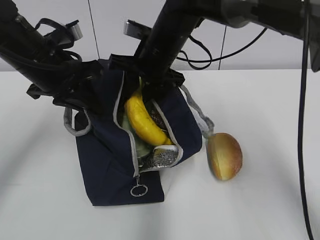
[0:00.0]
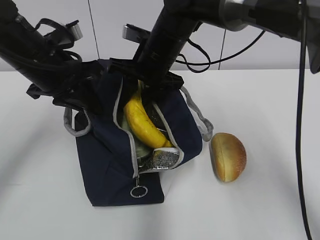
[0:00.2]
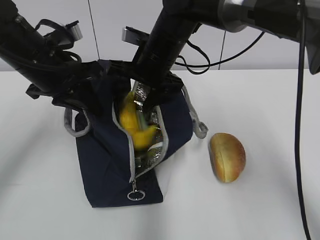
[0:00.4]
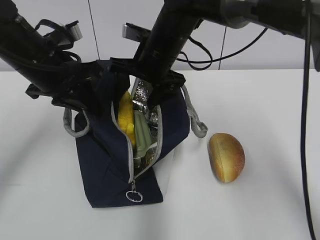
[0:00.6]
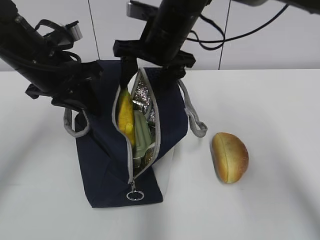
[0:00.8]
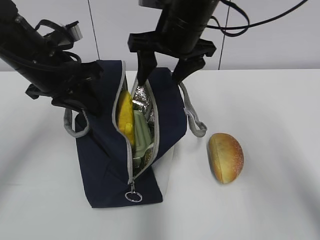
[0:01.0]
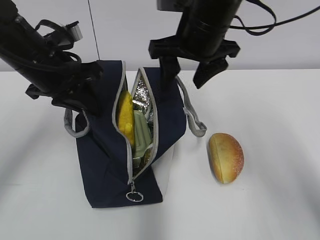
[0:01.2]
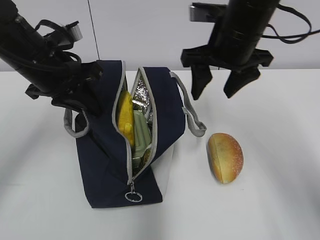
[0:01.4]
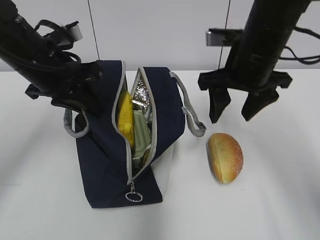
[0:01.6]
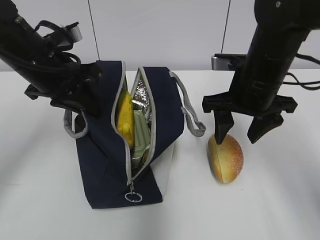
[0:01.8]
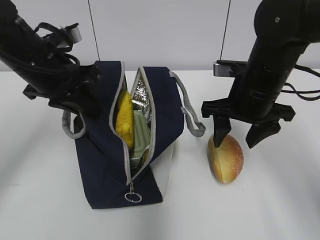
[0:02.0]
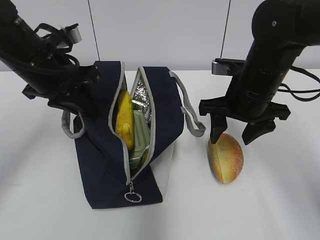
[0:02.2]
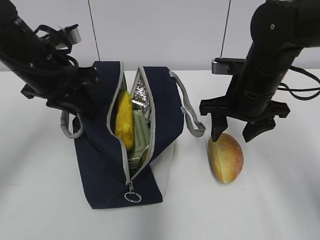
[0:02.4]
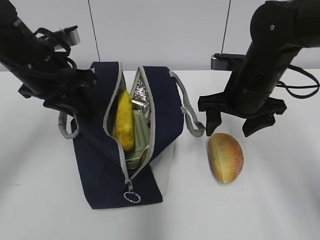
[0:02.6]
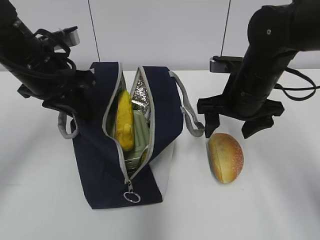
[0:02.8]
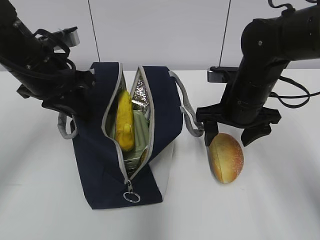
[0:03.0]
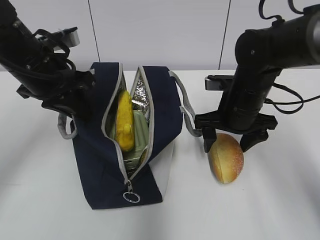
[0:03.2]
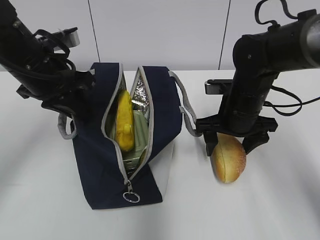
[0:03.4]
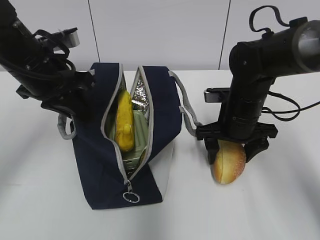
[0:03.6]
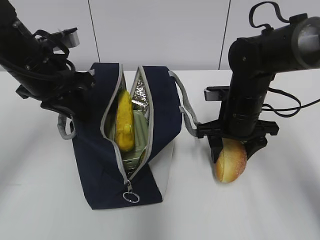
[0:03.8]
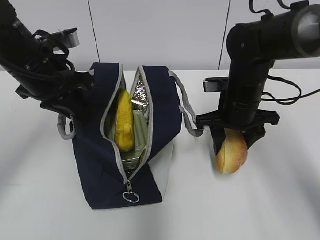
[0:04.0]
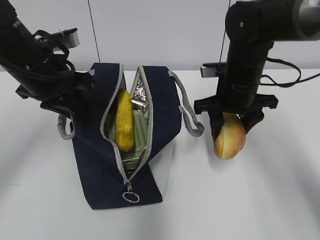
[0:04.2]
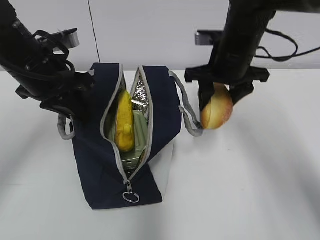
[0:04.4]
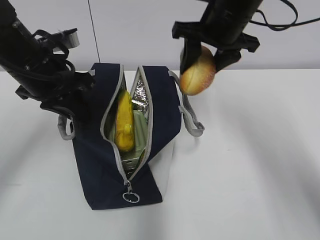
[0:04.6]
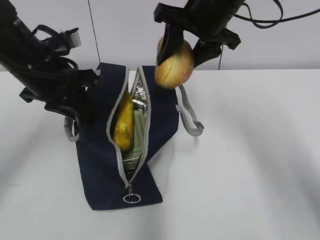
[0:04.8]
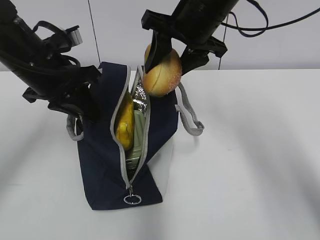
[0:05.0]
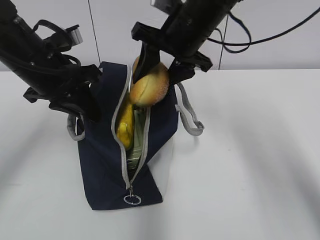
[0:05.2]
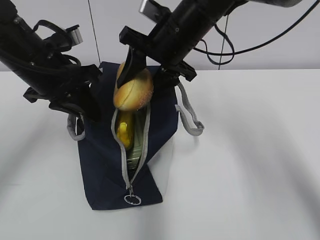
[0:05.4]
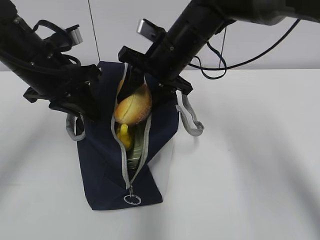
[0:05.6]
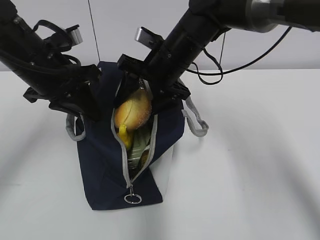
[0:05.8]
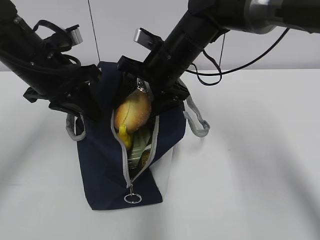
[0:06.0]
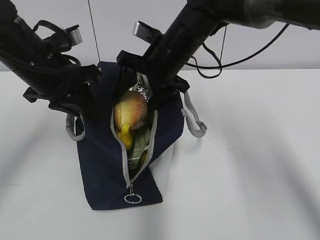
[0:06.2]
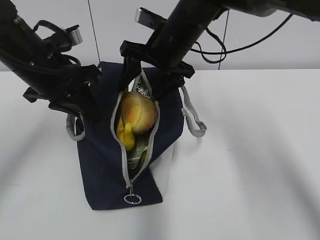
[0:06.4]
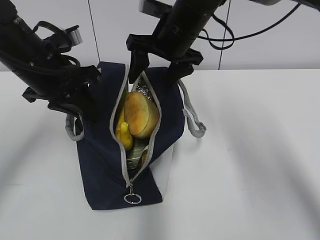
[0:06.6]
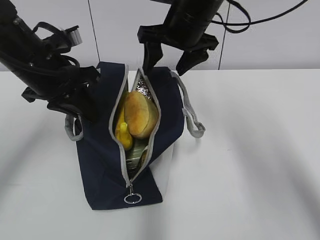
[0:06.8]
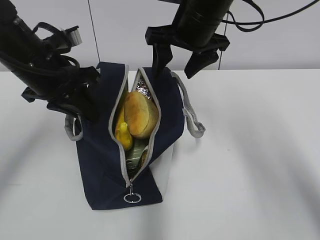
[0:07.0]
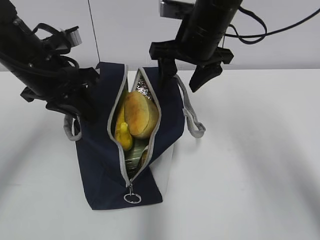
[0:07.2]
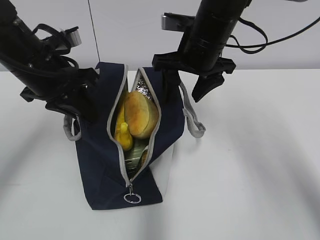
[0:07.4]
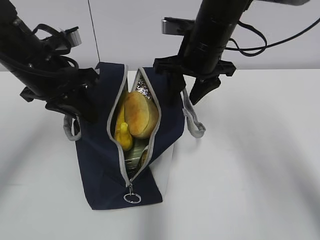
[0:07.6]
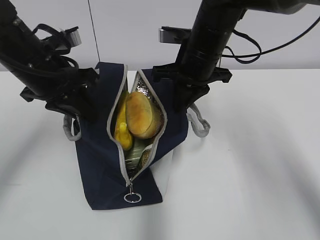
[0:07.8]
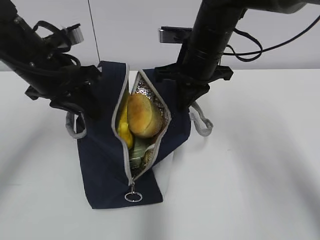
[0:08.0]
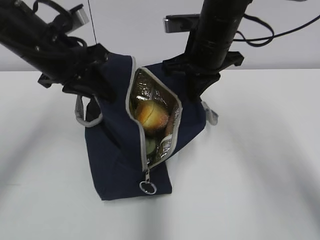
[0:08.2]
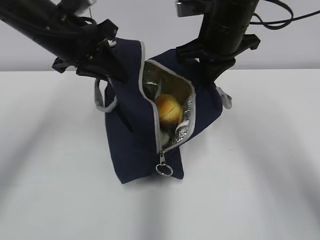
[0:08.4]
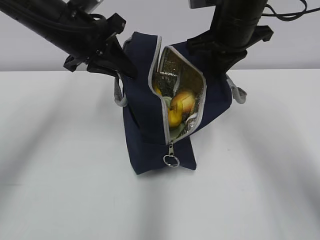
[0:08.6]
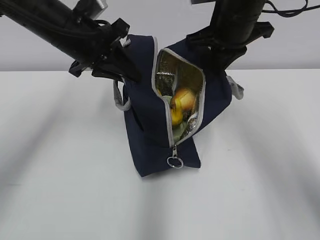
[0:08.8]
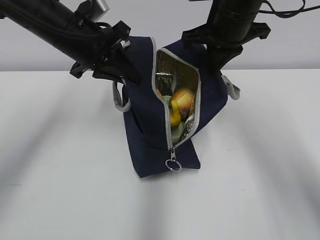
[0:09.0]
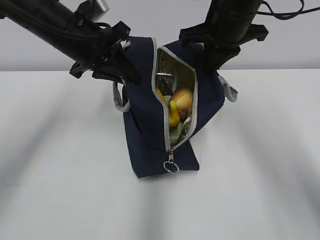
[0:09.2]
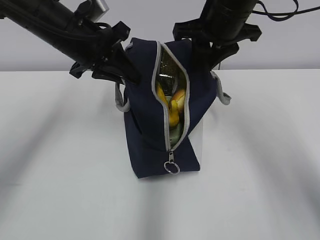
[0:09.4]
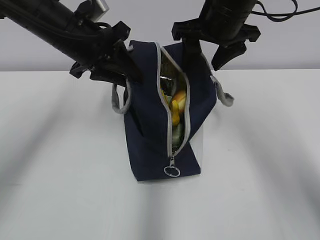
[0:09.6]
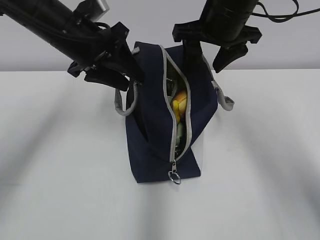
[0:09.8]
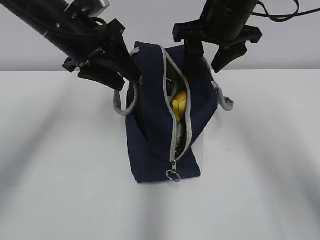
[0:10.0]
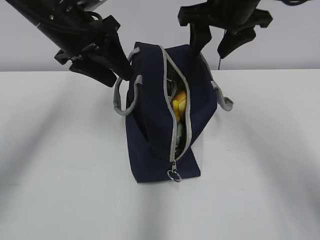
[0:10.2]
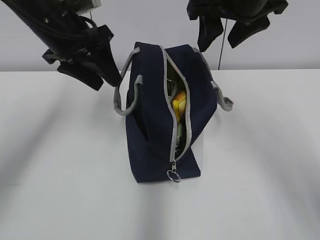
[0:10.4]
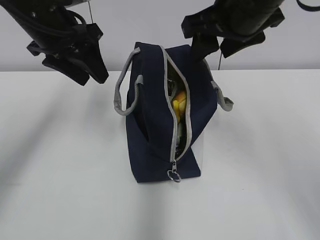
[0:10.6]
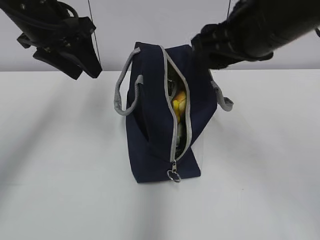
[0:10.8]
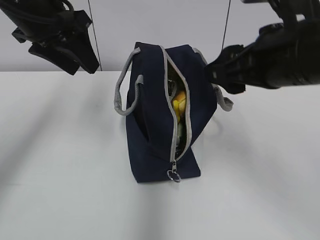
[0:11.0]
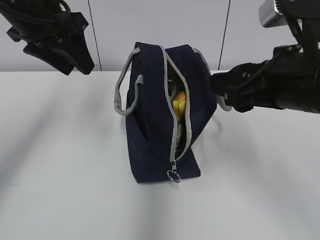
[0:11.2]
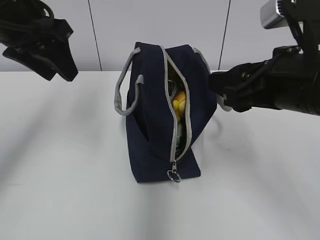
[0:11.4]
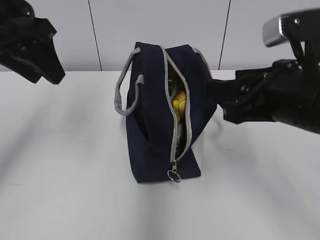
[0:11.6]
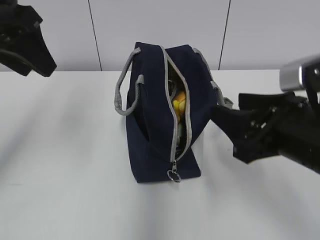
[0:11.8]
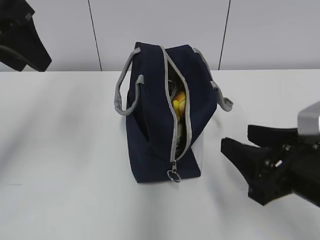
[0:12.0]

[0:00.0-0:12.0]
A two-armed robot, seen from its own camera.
0:00.0 to 0:01.6: The right gripper moves to the right and backward, approximately 15 cm, and opens up.
0:01.6 to 0:03.0: The right gripper shifts some 10 cm downward.
0:03.0 to 0:04.4: The right gripper is displaced upward by roughly 5 cm.
0:04.4 to 0:06.0: The right gripper heads to the left, covering some 10 cm, and reaches about 10 cm upward, then returns.
0:06.0 to 0:07.6: The right gripper shifts by approximately 5 cm.
0:07.6 to 0:09.0: The right gripper changes place by about 5 cm, and closes its fingers; the left gripper moves approximately 5 cm.
0:09.0 to 0:10.4: The right gripper moves about 5 cm, and opens. Meanwhile the left gripper opens.
0:10.4 to 0:12.0: The right gripper moves backward and downward, some 25 cm, while the left gripper goes some 15 cm backward, upward and to the left.

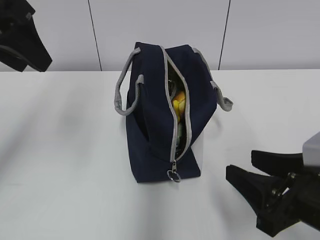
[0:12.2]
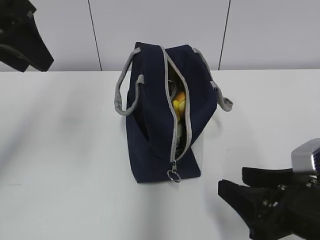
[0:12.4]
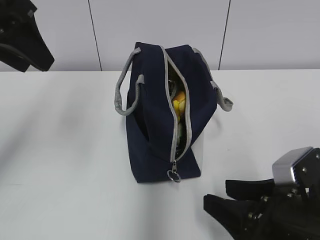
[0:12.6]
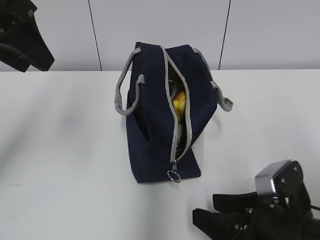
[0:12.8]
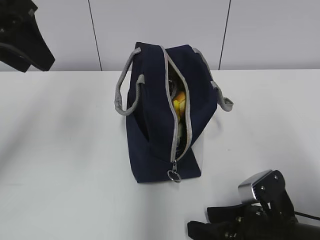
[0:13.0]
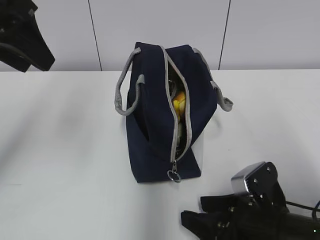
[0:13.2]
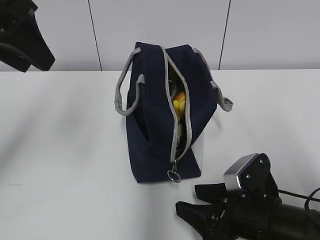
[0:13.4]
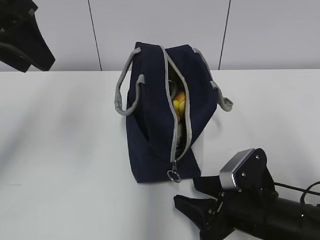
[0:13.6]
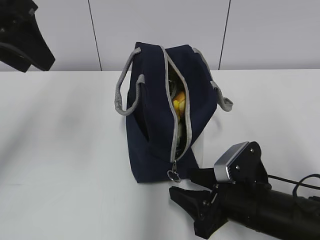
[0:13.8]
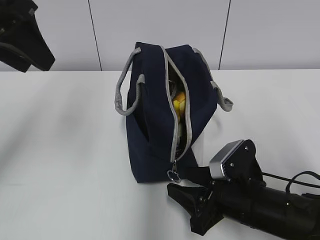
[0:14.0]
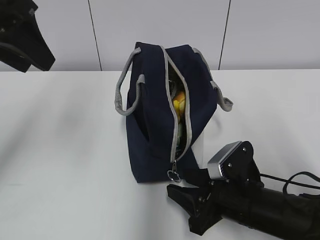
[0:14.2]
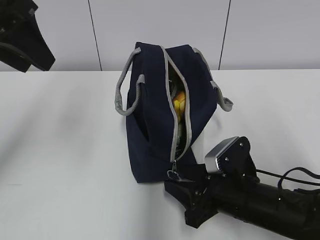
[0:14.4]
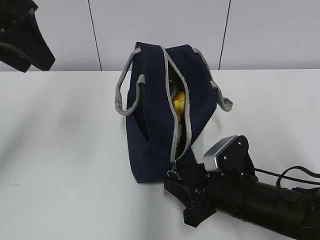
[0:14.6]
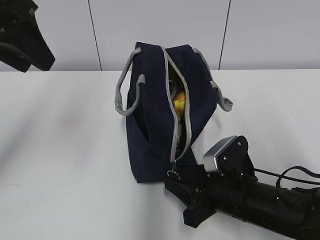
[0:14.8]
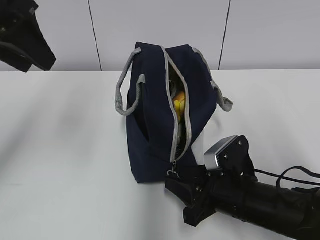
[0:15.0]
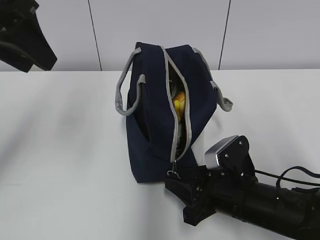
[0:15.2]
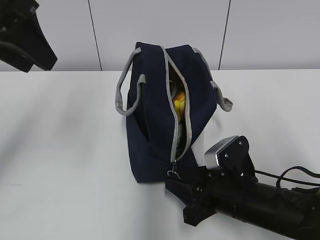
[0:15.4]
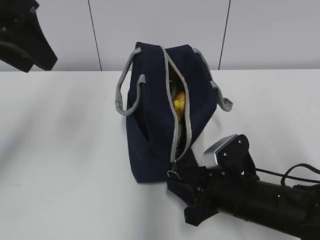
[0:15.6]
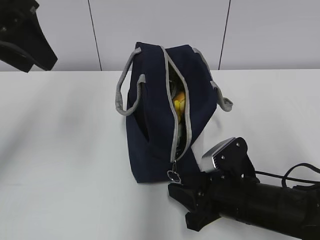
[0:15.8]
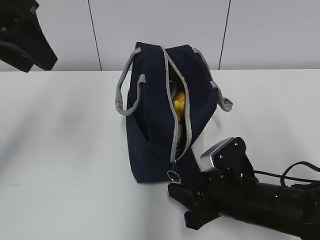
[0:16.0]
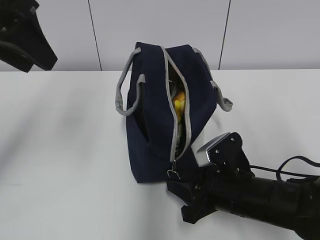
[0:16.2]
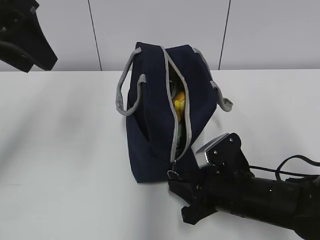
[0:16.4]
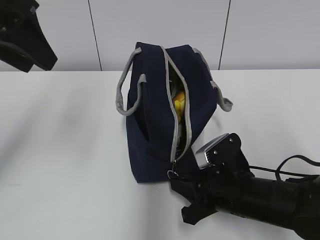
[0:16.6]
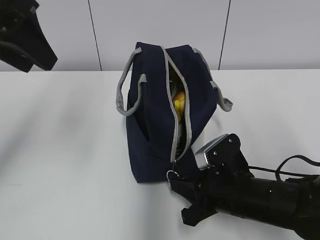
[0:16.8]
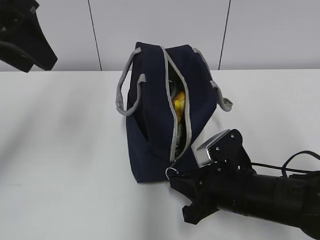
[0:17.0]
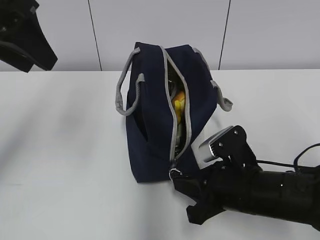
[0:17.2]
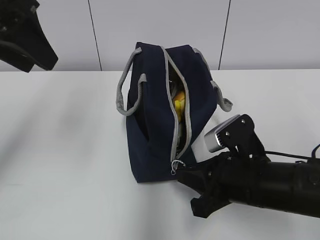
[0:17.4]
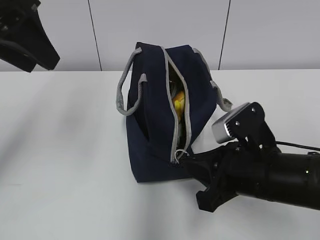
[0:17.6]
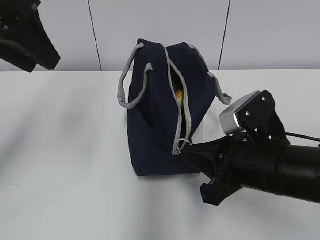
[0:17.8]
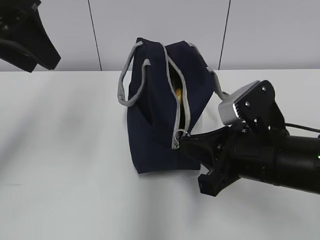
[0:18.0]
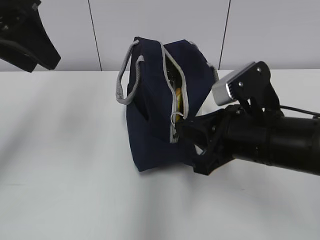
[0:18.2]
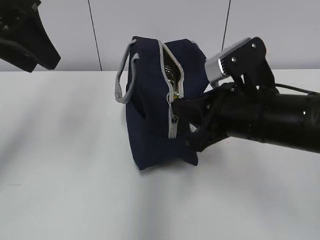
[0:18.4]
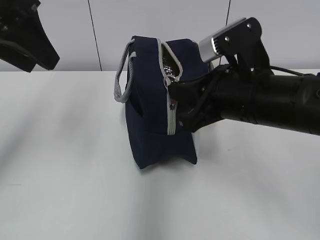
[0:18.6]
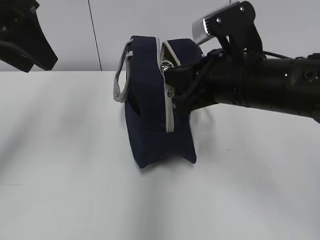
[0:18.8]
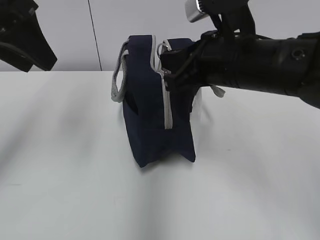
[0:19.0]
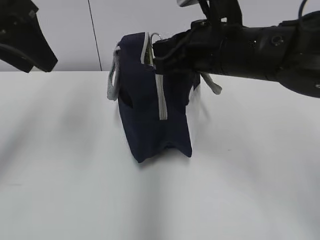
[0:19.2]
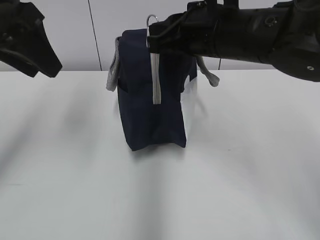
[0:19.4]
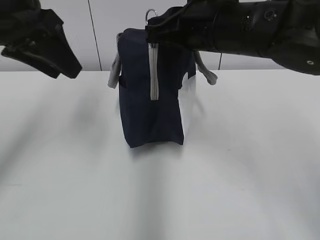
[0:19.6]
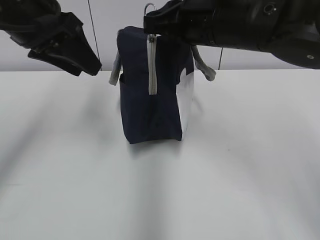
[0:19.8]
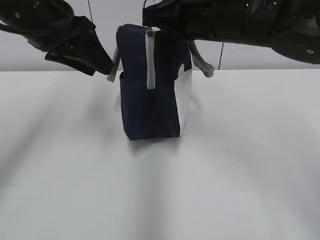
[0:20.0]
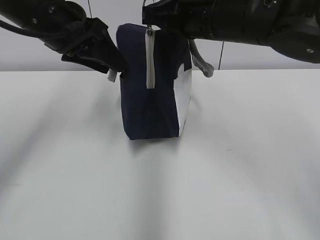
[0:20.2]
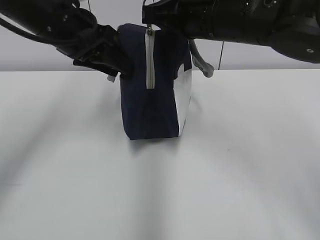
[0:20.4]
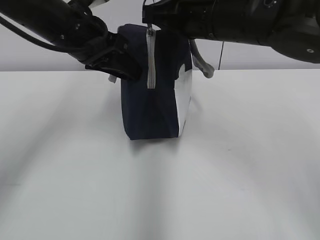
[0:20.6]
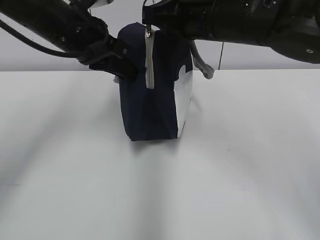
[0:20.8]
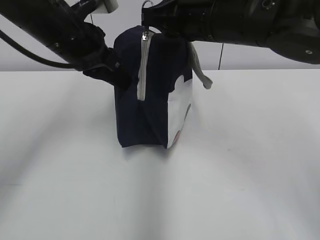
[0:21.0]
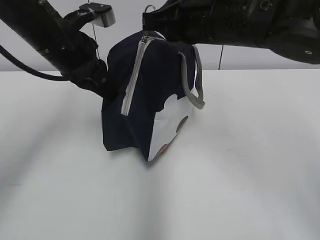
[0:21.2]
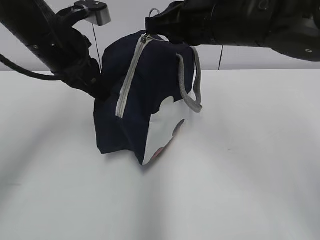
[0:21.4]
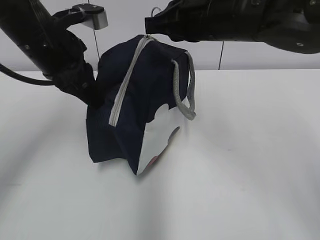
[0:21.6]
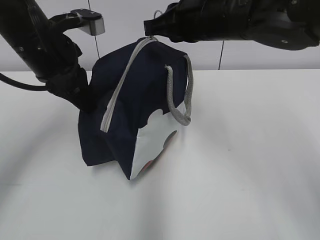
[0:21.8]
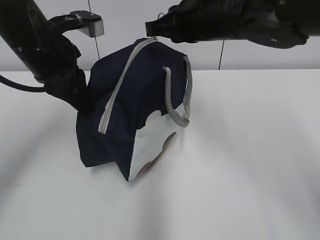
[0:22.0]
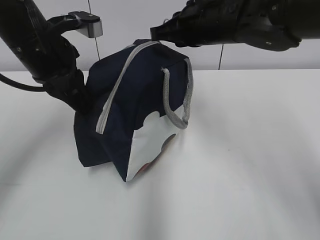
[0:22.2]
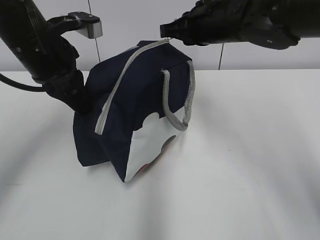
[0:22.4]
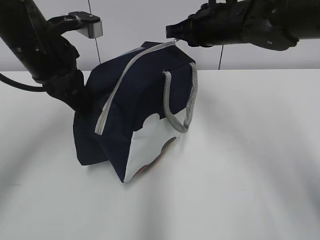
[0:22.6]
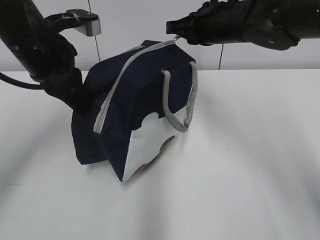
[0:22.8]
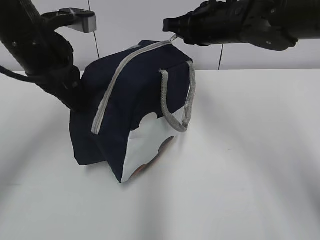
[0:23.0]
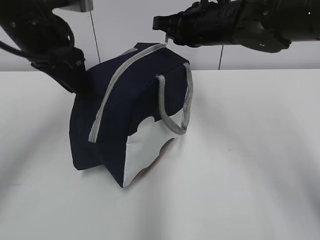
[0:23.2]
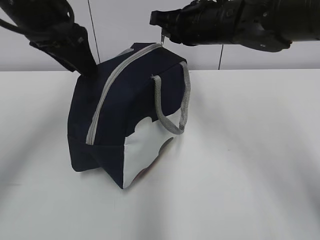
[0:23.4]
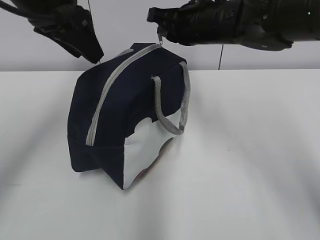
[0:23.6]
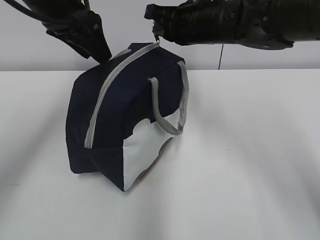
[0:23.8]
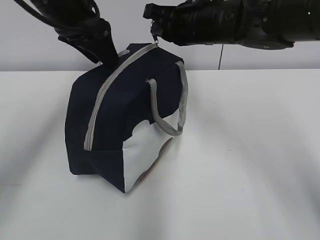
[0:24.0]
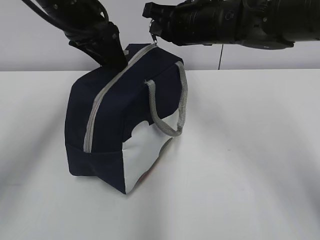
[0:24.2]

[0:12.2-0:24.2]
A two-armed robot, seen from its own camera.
0:12.2 to 0:13.8: The right gripper goes about 10 cm downward, forward and to the left.
0:13.8 to 0:16.6: The grippers stay close to where they were, moving slightly.
0:16.6 to 0:18.2: The right gripper travels upward by about 10 cm.
0:18.2 to 0:19.8: The left gripper moves about 5 cm. Meanwhile the right gripper is displaced upward and forward by about 15 cm.
0:19.8 to 0:21.2: The left gripper moves downward, roughly 5 cm, and closes its fingers.
0:21.2 to 0:22.6: The right gripper goes roughly 10 cm forward.
0:22.6 to 0:24.2: The left gripper is displaced forward by some 5 cm, and opens up.
